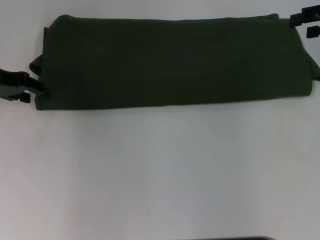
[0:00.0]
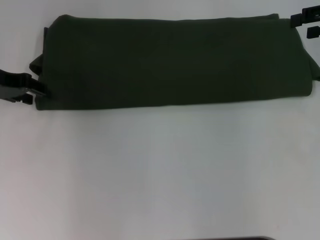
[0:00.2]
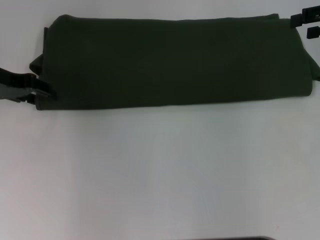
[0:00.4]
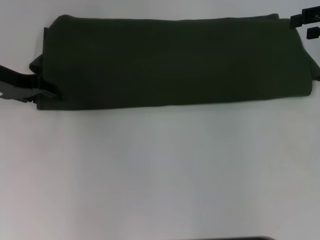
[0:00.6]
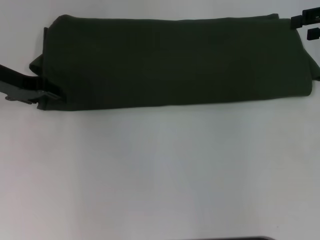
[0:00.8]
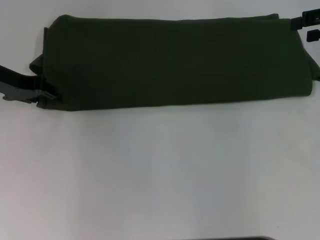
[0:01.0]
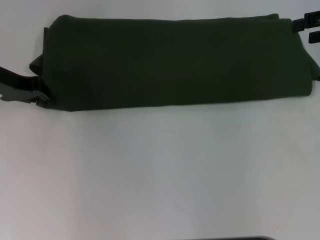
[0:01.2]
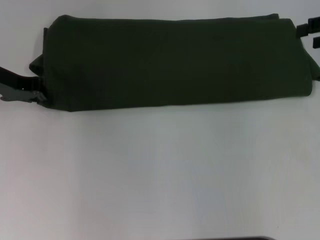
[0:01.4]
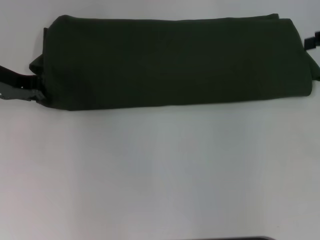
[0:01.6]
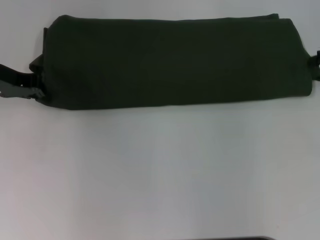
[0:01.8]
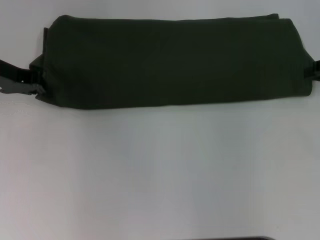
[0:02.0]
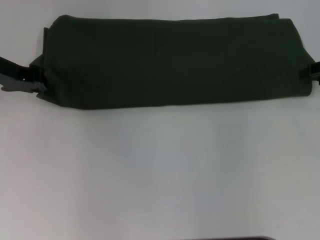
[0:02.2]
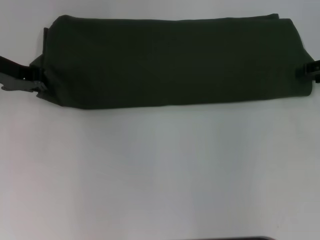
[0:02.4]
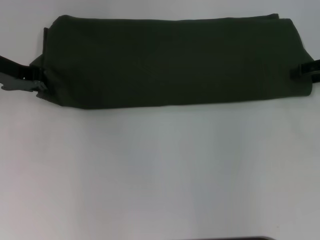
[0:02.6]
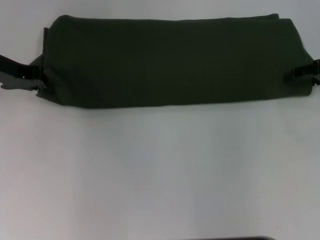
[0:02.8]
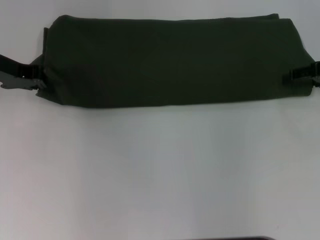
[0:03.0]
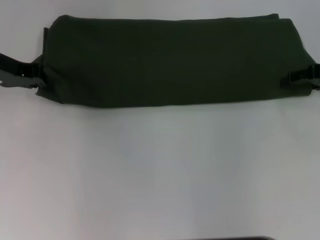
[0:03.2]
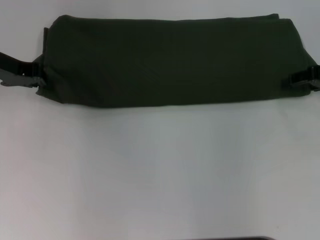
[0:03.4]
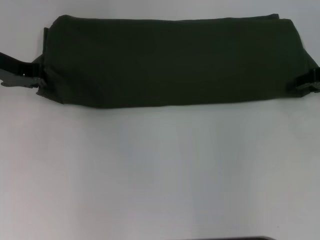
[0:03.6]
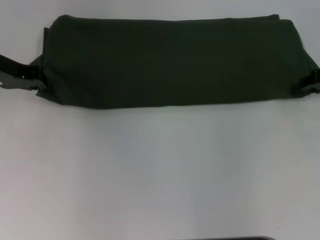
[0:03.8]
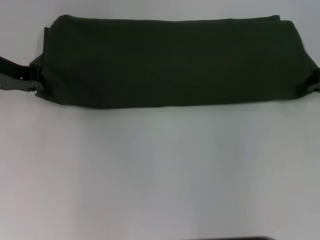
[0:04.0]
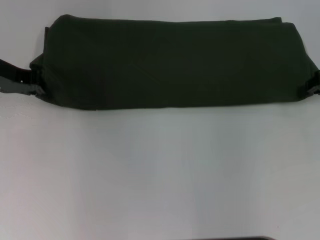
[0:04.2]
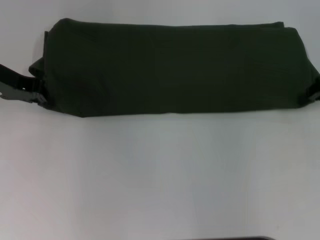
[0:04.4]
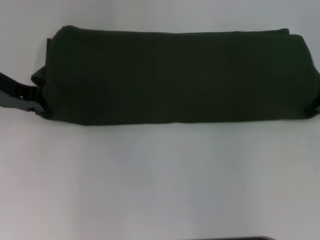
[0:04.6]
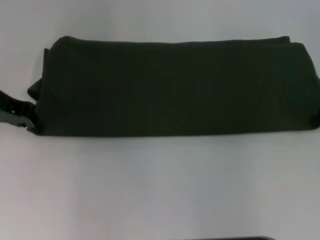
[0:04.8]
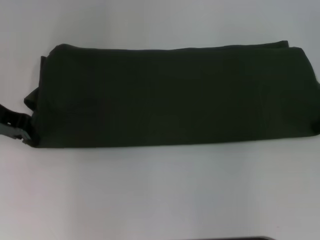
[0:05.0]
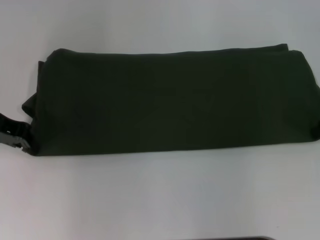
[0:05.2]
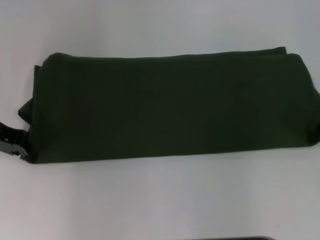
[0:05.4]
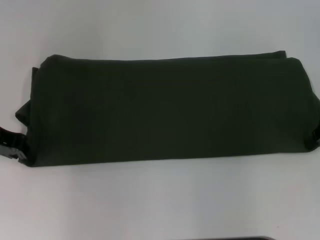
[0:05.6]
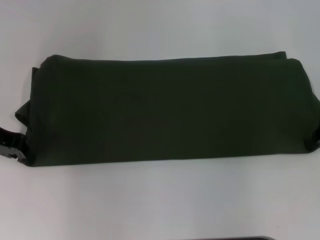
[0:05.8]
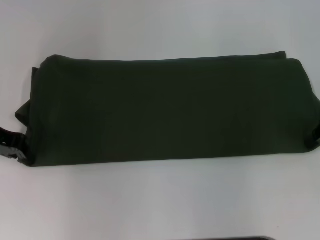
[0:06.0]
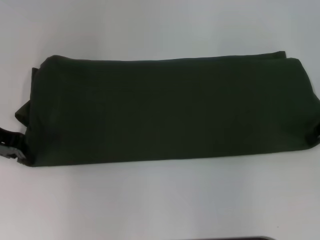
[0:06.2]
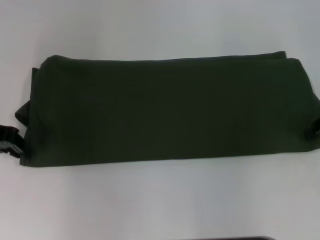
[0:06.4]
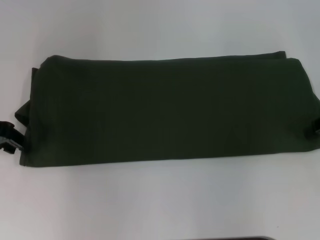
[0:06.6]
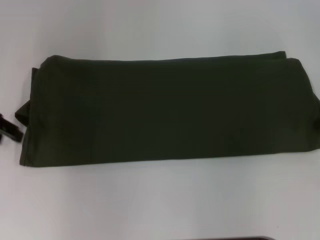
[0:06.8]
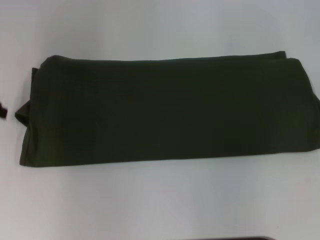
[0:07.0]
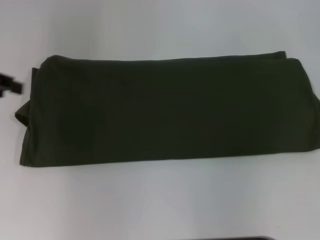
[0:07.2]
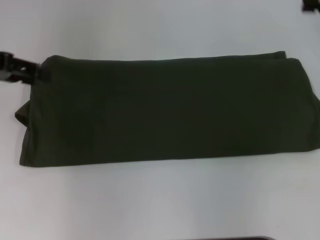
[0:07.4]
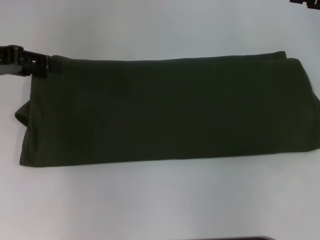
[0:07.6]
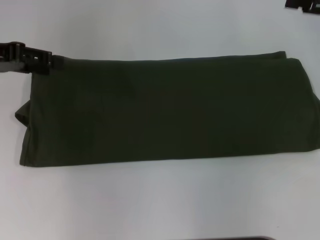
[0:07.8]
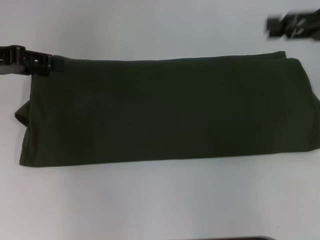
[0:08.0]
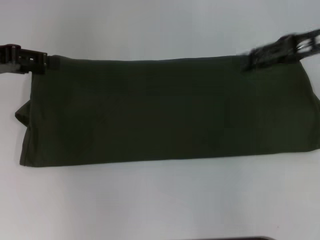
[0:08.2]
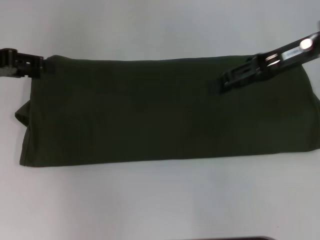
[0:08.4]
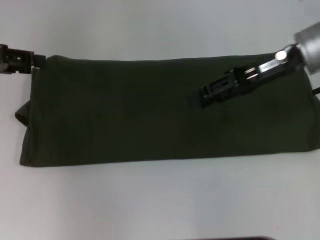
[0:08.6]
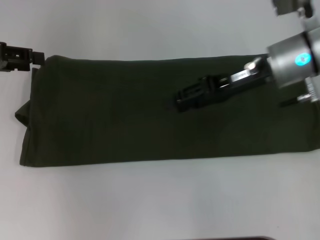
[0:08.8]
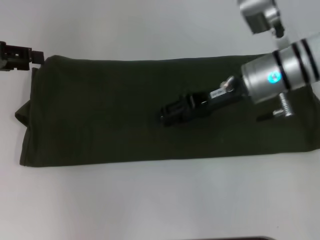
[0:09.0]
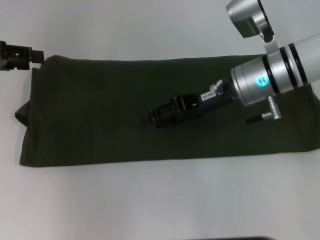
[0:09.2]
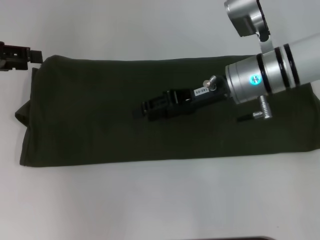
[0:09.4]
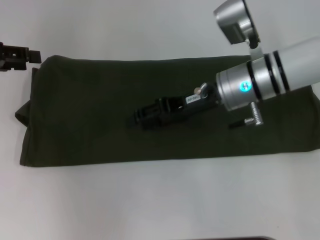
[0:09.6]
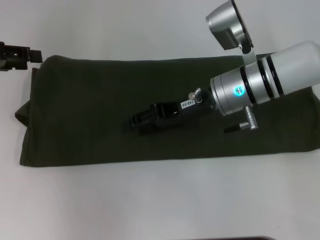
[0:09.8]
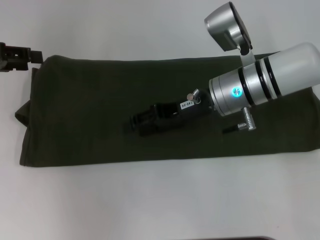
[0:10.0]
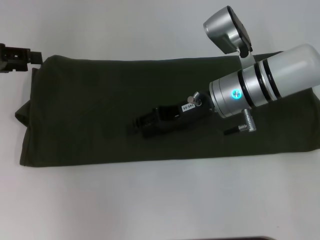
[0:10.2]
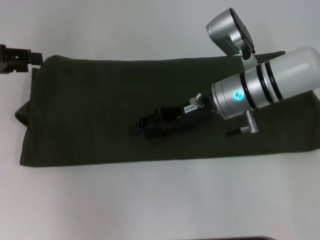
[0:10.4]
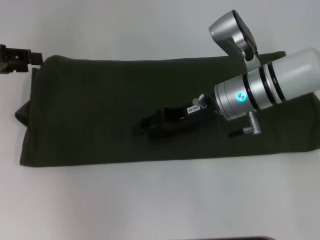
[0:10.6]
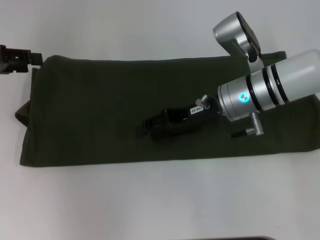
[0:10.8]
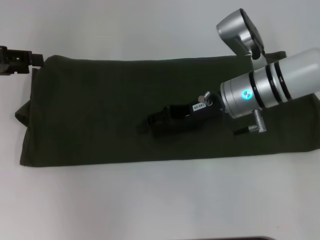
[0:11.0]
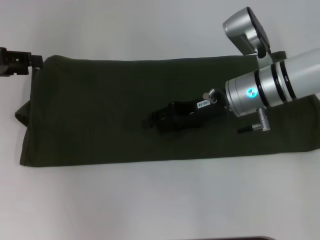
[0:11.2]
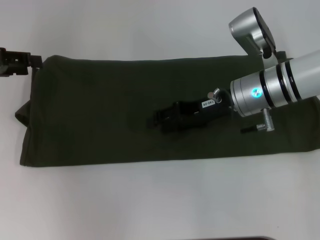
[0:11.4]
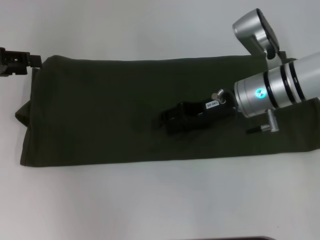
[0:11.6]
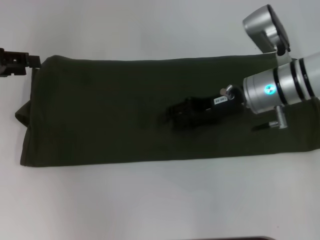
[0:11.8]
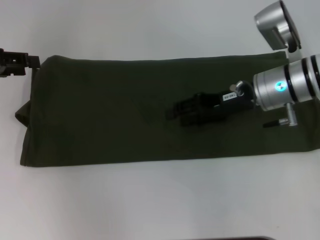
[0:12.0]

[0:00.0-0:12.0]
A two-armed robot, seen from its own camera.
0:00.0 to 0:01.6: The left gripper closes its fingers.
0:01.6 to 0:03.0: The right gripper heads downward, covering some 5 cm.
0:03.0 to 0:04.4: The right gripper closes.
0:04.4 to 0:06.0: The left gripper shifts some 5 cm backward.
0:06.0 to 0:07.6: The left gripper is displaced upward by approximately 5 cm, and opens.
0:07.6 to 0:09.0: The right gripper moves to the left, some 20 cm.
0:09.0 to 0:10.4: The grippers move only a little.
0:10.4 to 0:12.0: The right gripper heads to the right, covering about 5 cm.

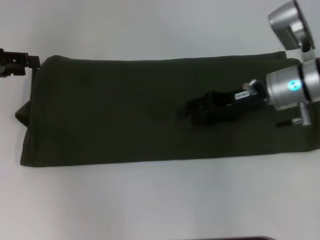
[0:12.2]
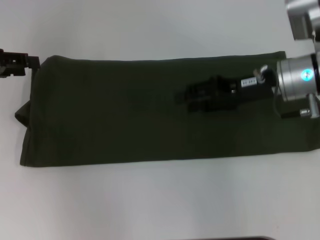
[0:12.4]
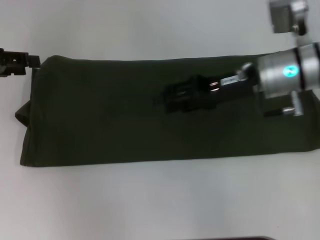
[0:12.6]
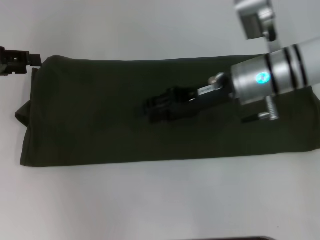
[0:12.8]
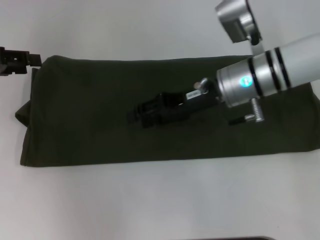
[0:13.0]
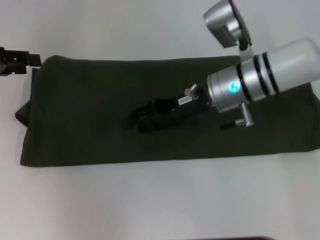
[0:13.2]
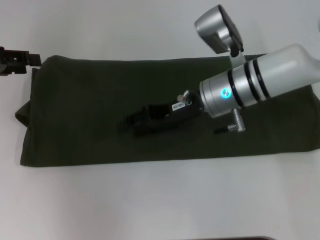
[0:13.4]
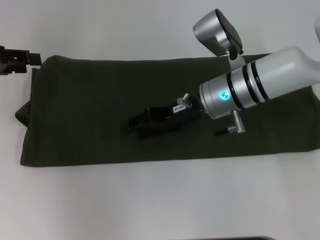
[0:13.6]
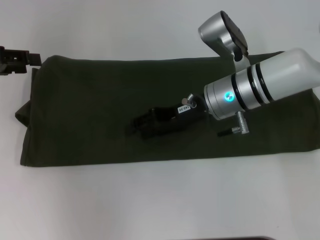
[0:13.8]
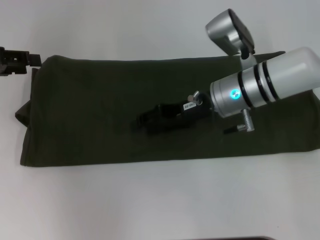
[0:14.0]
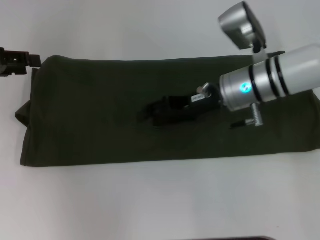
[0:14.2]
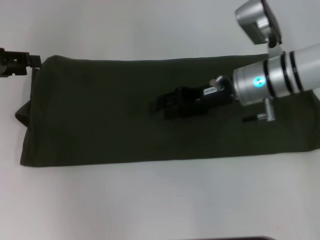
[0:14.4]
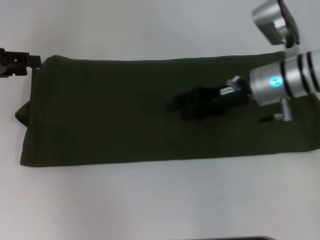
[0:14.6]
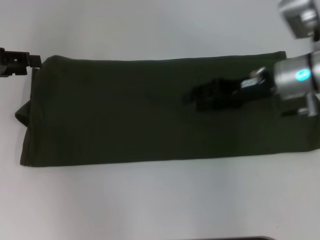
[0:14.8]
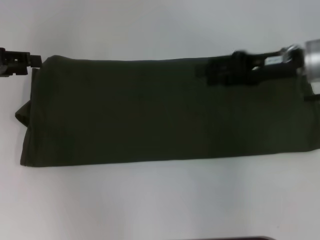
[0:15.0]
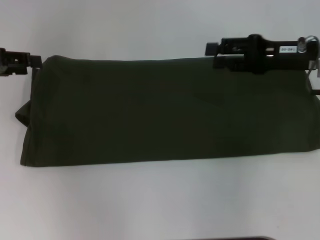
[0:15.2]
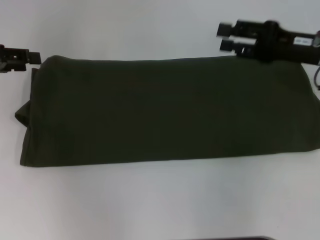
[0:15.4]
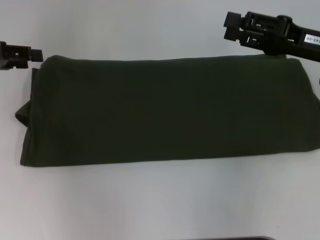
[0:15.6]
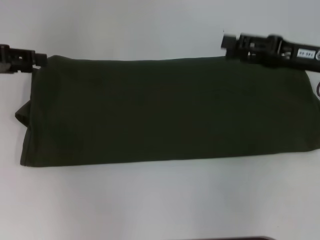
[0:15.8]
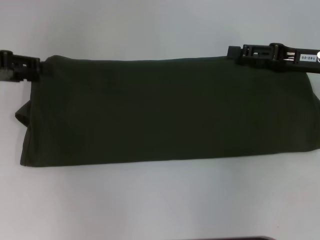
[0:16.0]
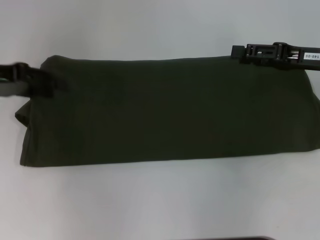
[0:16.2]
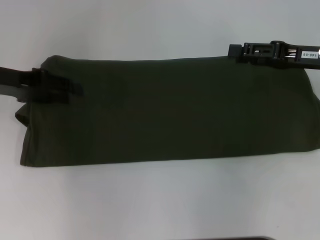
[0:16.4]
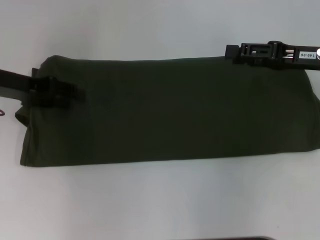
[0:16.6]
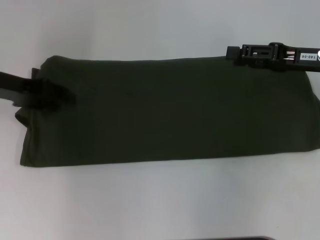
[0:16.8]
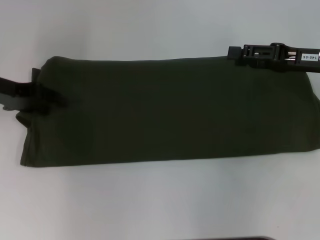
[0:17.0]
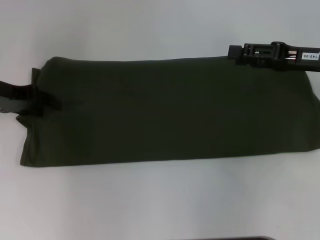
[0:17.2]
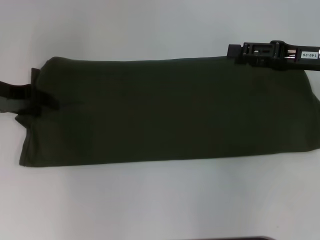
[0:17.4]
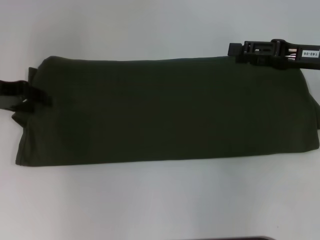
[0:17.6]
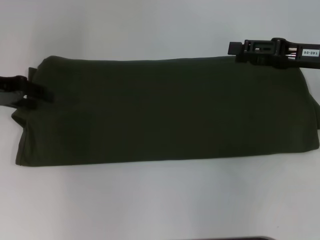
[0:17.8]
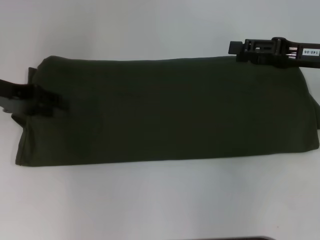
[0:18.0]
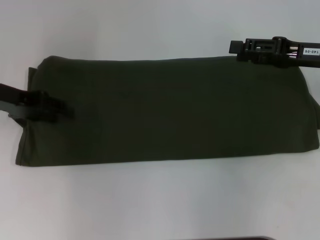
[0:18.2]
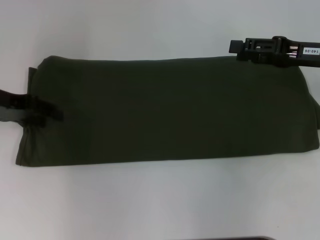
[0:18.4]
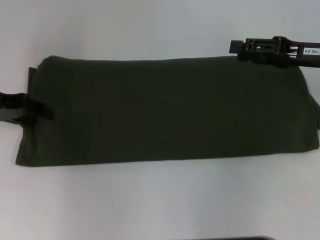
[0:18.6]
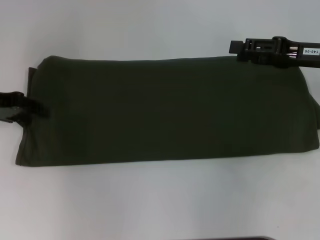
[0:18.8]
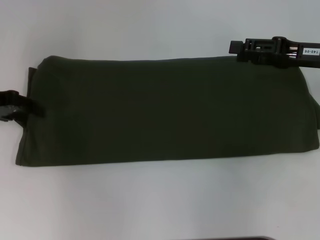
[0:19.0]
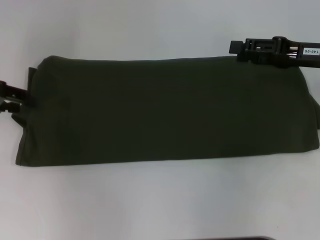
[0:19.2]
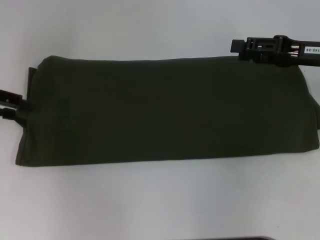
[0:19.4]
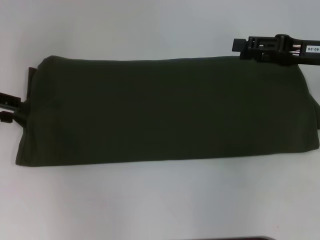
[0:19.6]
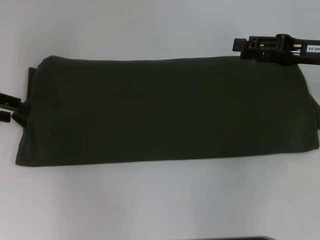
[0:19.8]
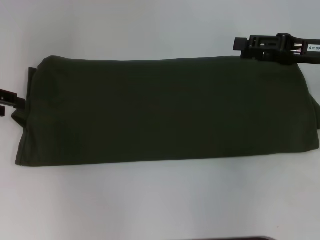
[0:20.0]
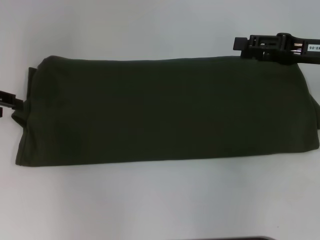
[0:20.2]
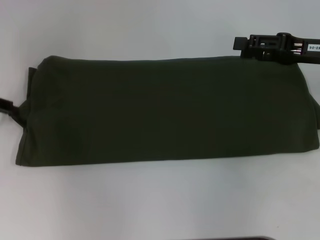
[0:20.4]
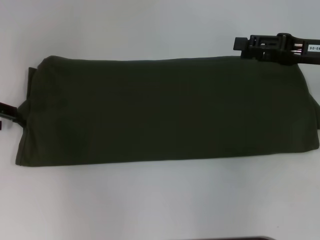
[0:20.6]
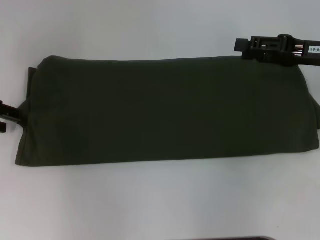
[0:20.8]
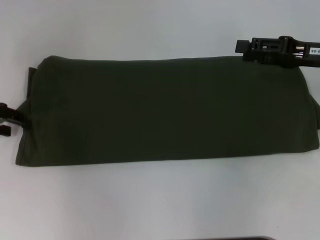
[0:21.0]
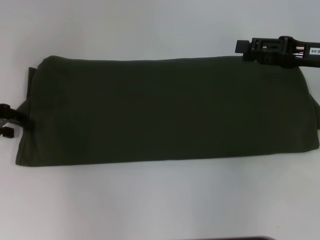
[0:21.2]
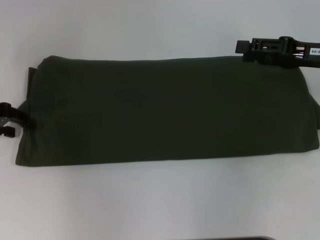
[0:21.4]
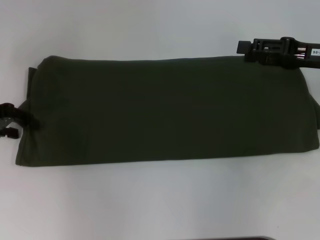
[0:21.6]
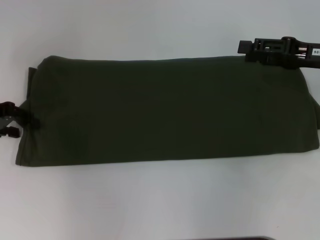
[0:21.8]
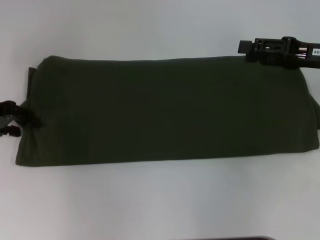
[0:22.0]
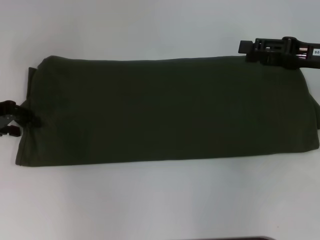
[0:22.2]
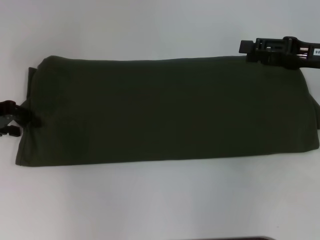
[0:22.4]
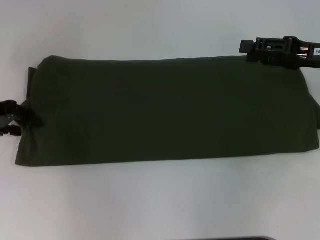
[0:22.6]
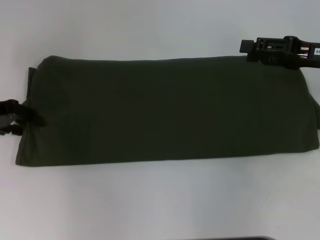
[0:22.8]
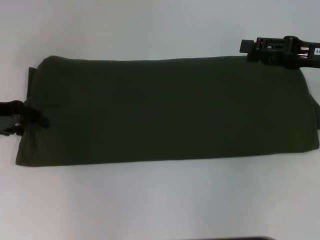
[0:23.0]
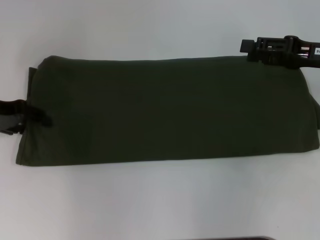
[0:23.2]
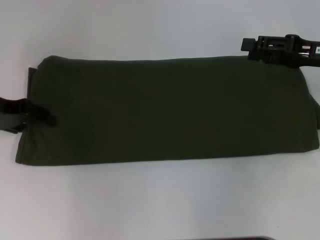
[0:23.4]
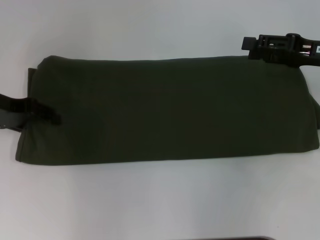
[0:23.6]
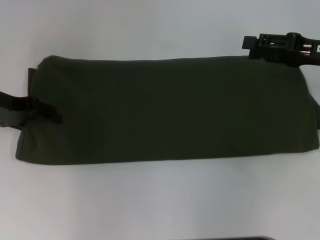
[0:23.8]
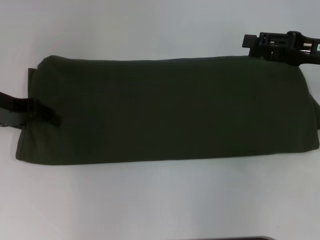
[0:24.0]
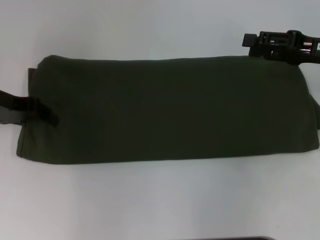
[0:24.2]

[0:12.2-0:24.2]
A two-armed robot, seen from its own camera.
0:12.2 to 0:13.8: The right gripper is displaced to the left by approximately 10 cm.
0:13.8 to 0:15.2: The right gripper travels to the right by some 15 cm.
0:15.2 to 0:16.6: The left gripper moves to the right, some 5 cm.
0:16.6 to 0:18.2: There are only small adjustments of the grippers.
0:18.2 to 0:19.8: The left gripper is displaced to the left by about 5 cm.
0:19.8 to 0:21.2: There are only small adjustments of the grippers.
0:21.2 to 0:22.6: Both grippers stay about where they are.
0:22.6 to 0:24.2: The grippers move only a little.
